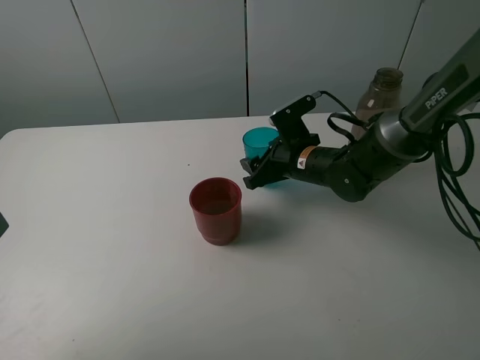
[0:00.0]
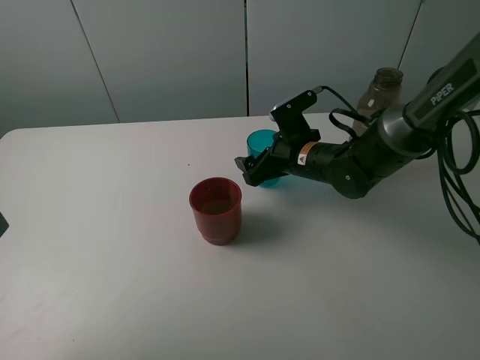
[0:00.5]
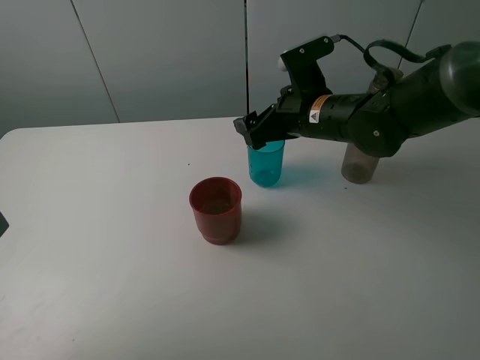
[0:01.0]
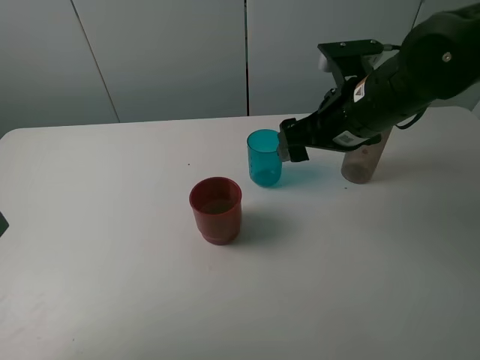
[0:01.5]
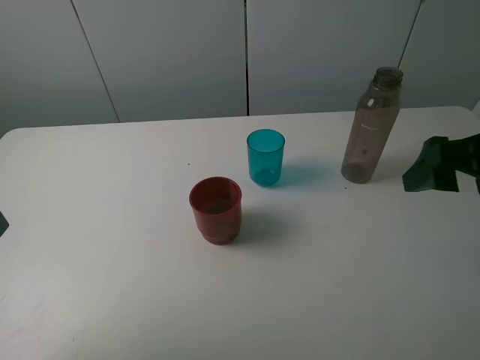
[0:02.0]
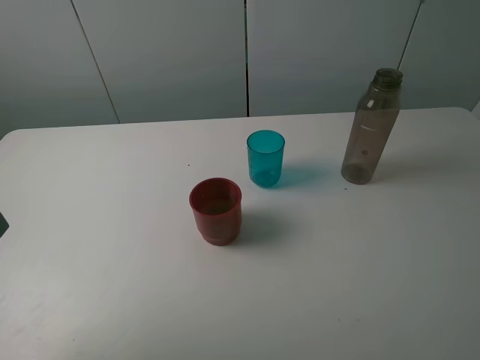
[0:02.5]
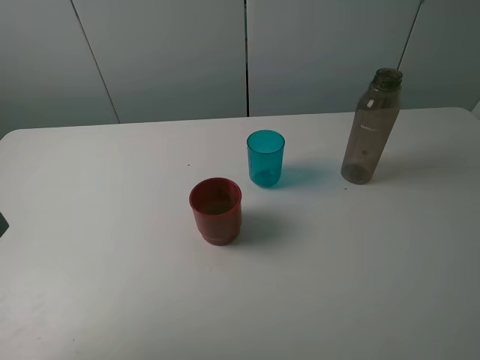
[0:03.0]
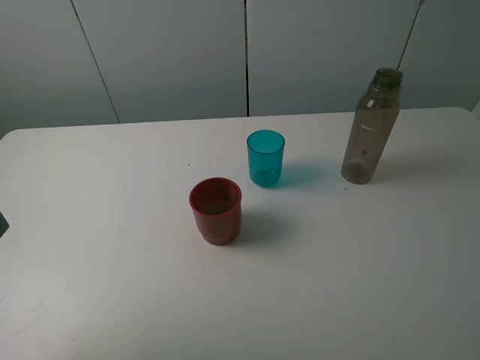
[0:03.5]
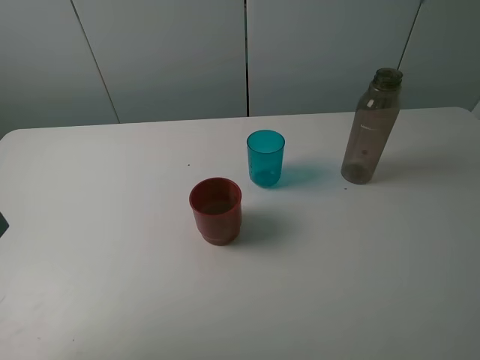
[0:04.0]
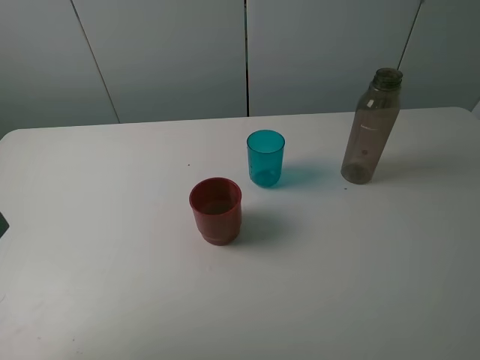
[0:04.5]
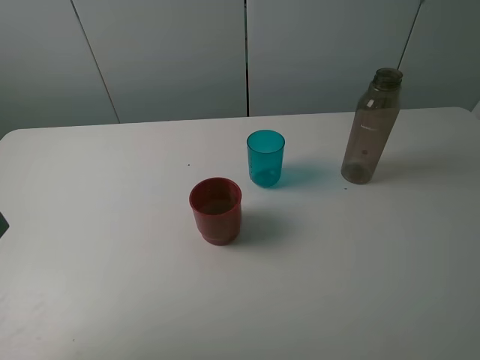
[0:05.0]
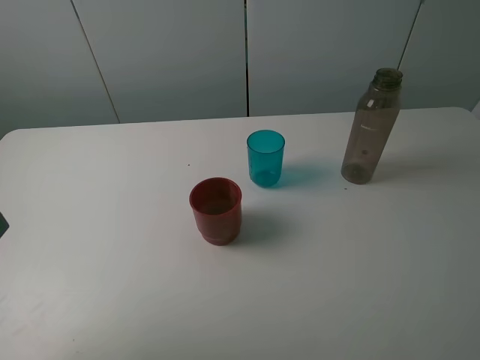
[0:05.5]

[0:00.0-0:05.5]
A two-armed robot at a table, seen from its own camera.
Task of the whole recording: pick up the bottle and pour water into the cup, then pick up the cup containing water and pour it into another cup.
0:00.0 to 0:02.0: The right gripper moves upward, backward and to the right, about 30 cm, and opens its fingers.
0:02.0 to 0:03.5: The right gripper goes roughly 15 cm backward.
0:03.5 to 0:05.5: Neither gripper changes place.

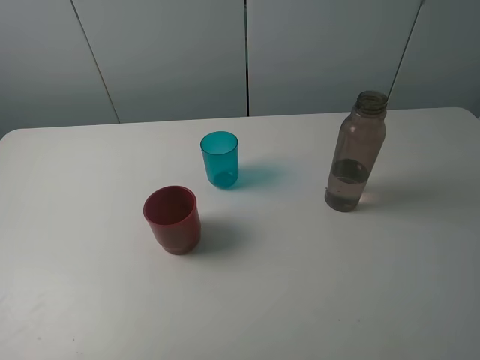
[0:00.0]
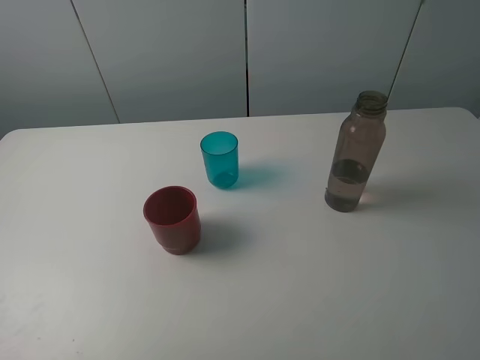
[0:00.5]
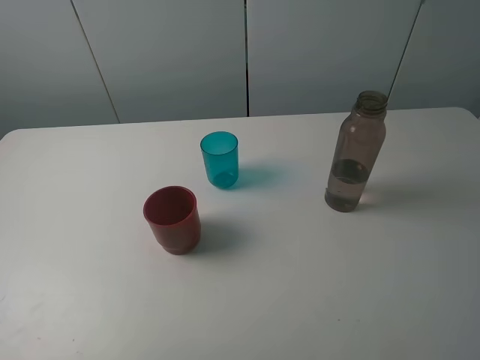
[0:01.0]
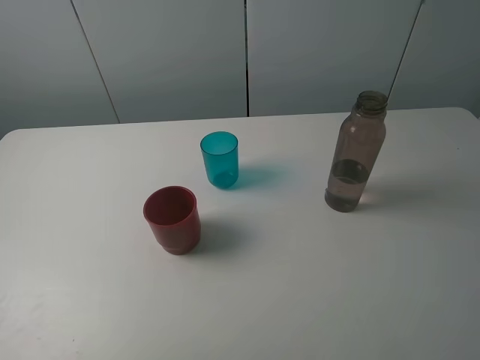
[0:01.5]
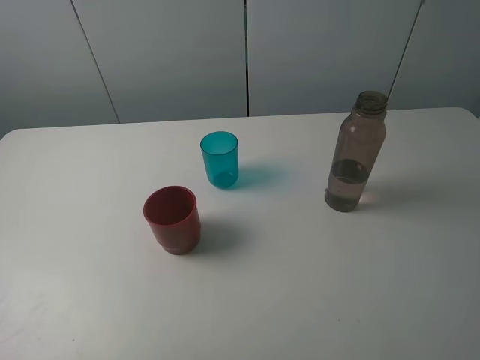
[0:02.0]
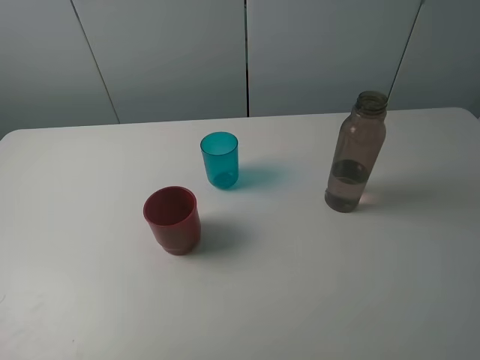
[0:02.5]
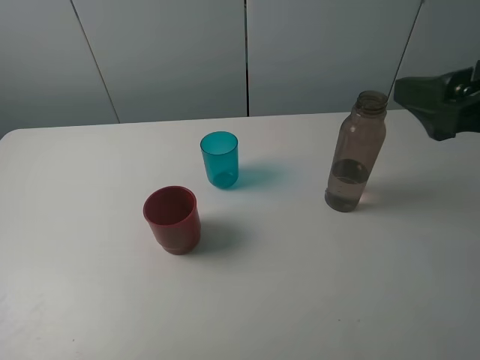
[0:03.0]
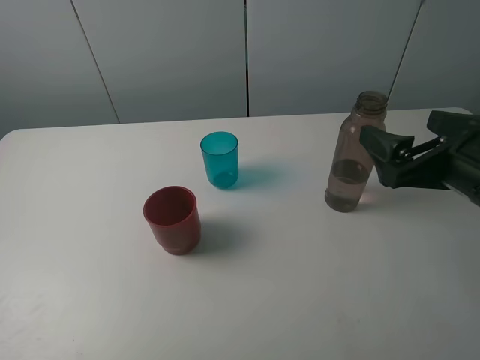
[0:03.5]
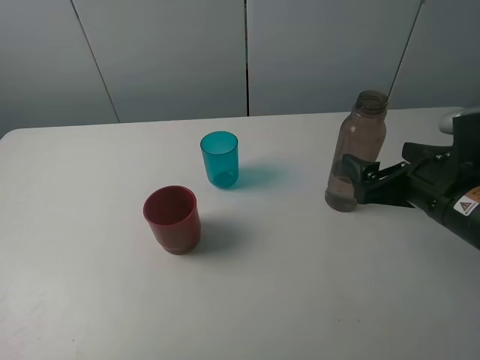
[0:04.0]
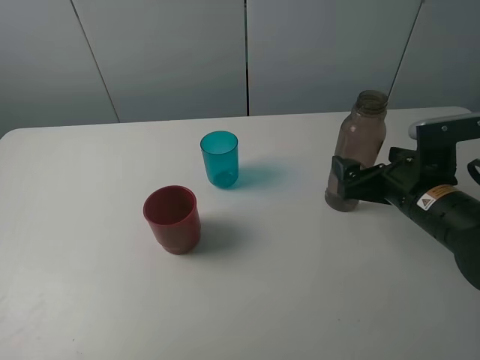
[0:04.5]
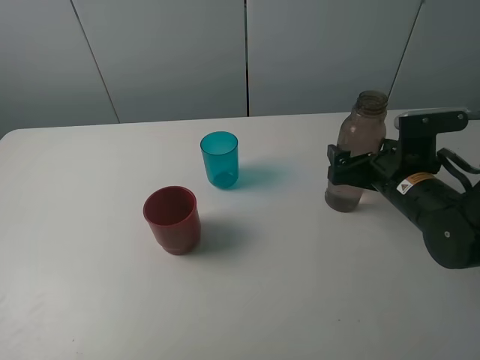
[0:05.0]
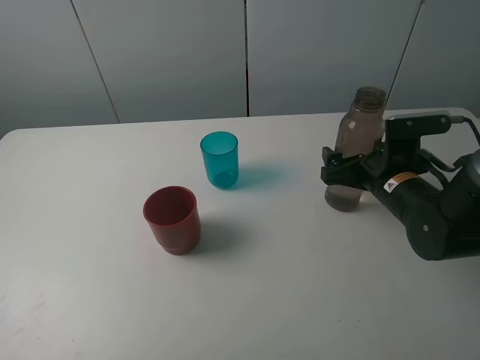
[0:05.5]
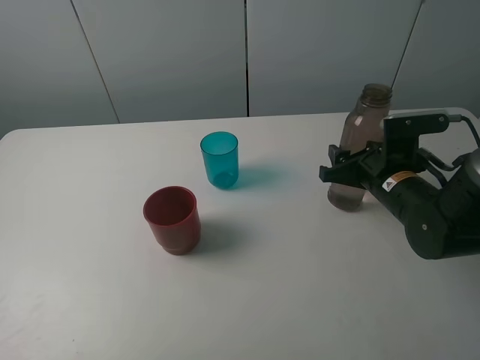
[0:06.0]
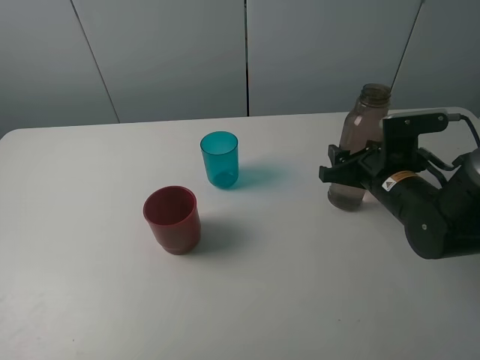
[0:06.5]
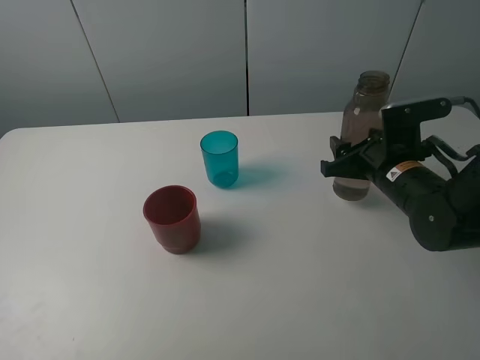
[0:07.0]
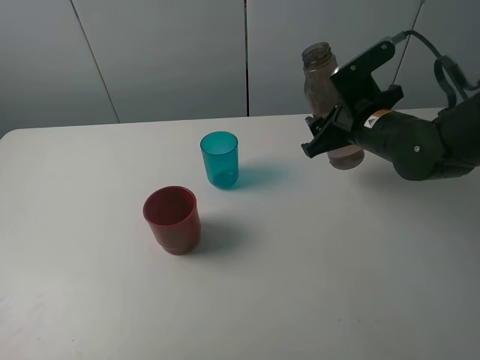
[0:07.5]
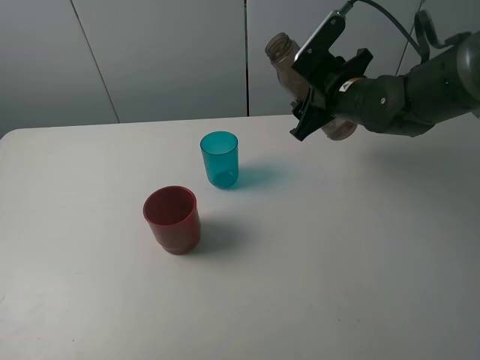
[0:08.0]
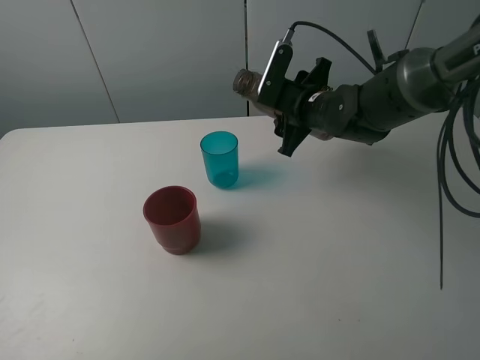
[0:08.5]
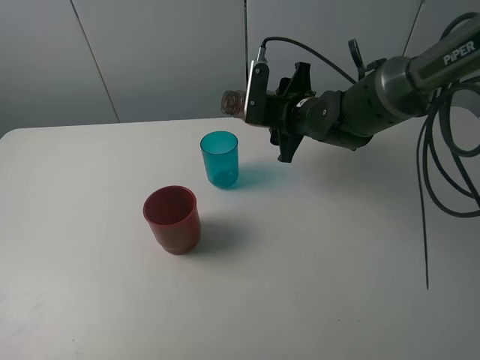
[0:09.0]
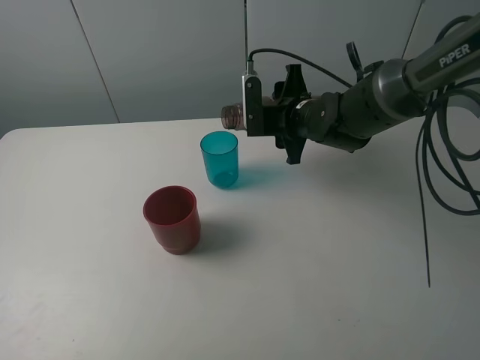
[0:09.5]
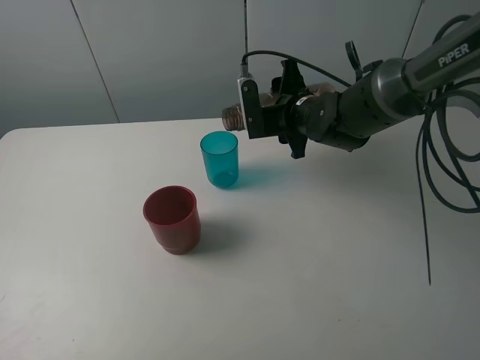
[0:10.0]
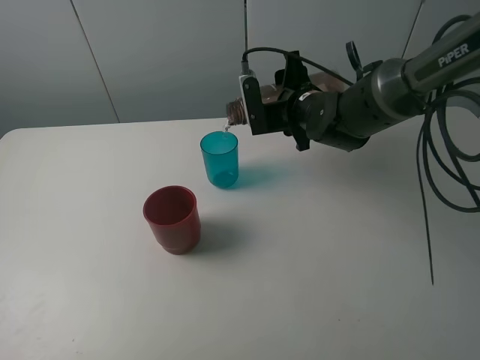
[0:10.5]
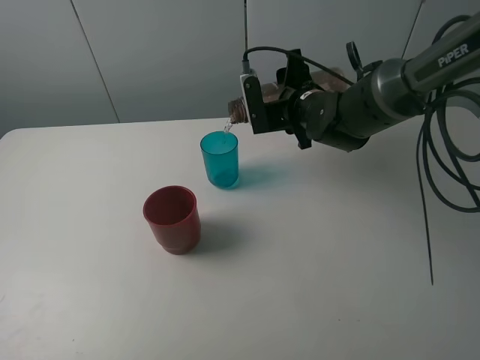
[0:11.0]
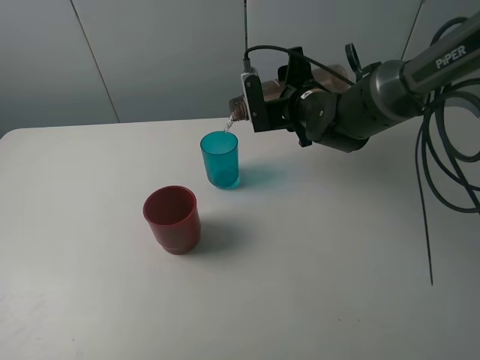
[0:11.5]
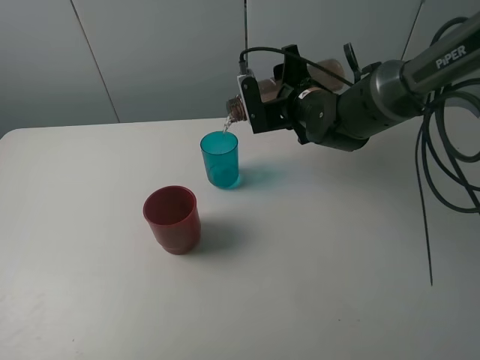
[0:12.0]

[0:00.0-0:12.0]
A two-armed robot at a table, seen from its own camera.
Task of the whole recording: pick up the bottle and pour water into the cup, then pick up the cup containing water and pour it into another cup.
Step, 0:00.0 to 0:06.0: Grasp the brown bottle with the right gripper.
0:00.0 to 0:02.0: Neither gripper changes place.
0:02.0 to 0:04.0: The right gripper is displaced forward and downward by some 25 cm.
0:04.0 to 0:06.0: The right gripper heads forward and downward, covering about 10 cm, and closes.
0:06.0 to 0:08.0: The right gripper heads forward, upward and to the left, covering approximately 15 cm.
0:08.0 to 0:10.0: The right gripper changes place by roughly 5 cm.
0:10.0 to 0:12.0: The grippers move only a little.

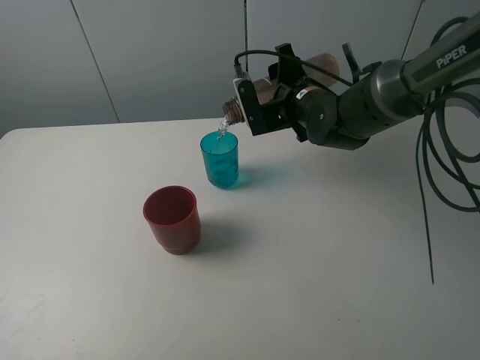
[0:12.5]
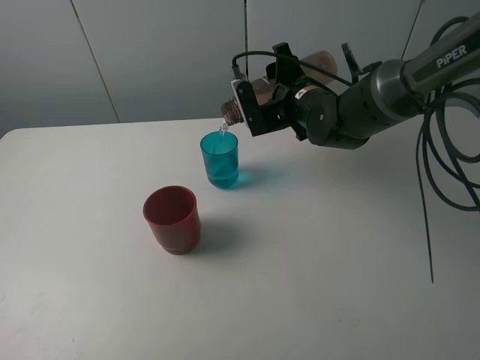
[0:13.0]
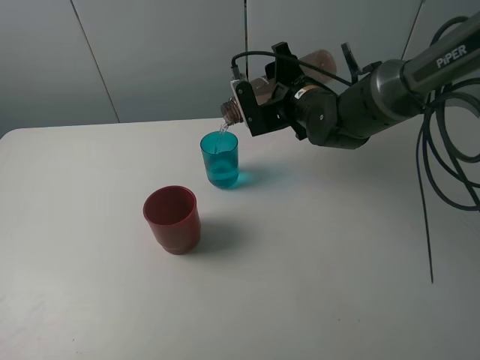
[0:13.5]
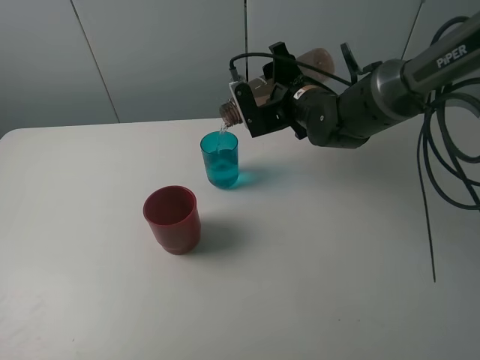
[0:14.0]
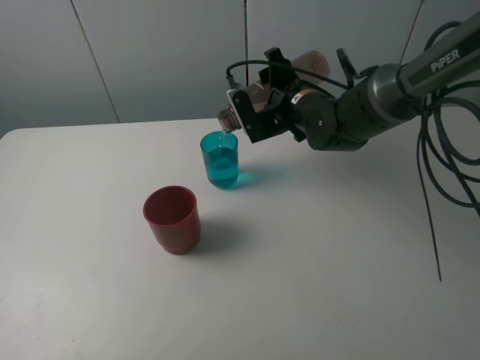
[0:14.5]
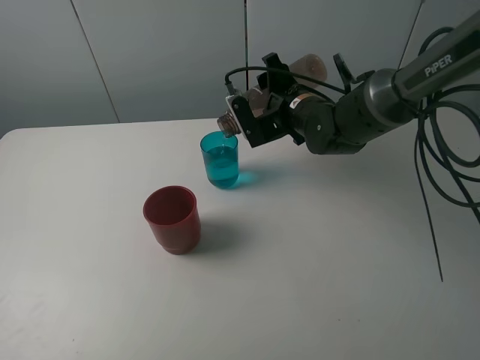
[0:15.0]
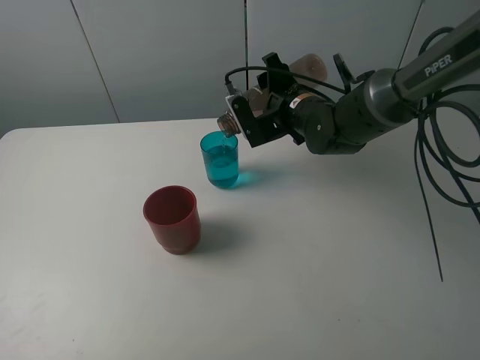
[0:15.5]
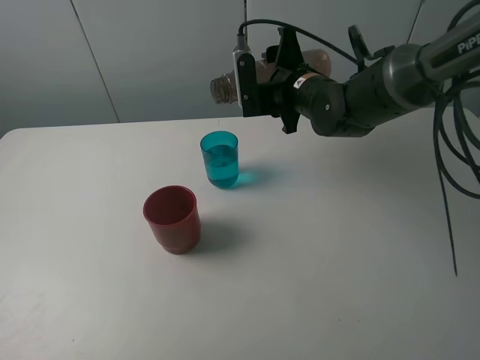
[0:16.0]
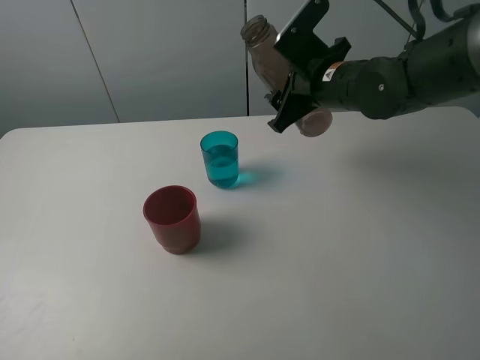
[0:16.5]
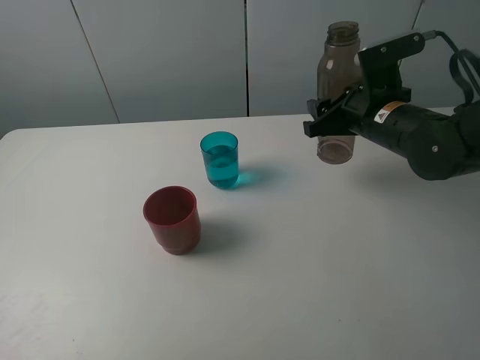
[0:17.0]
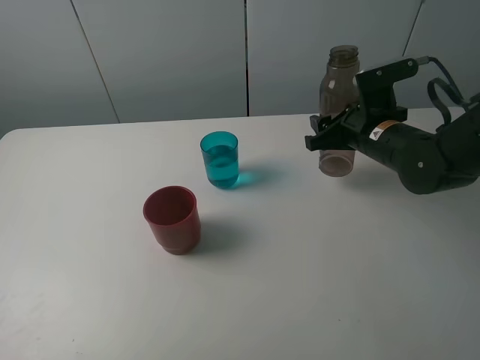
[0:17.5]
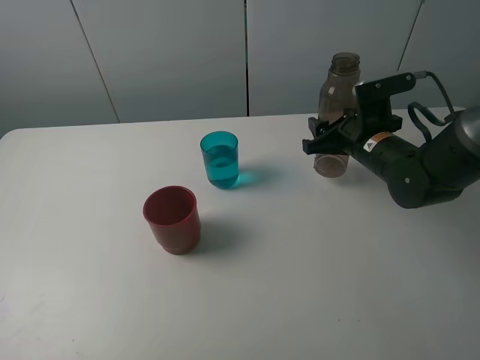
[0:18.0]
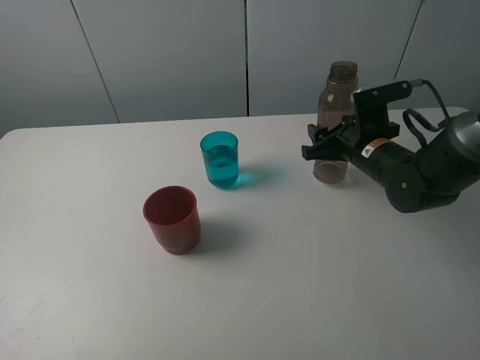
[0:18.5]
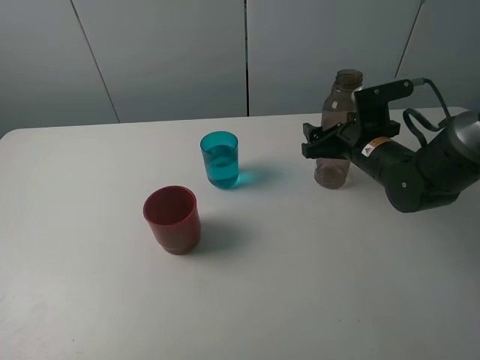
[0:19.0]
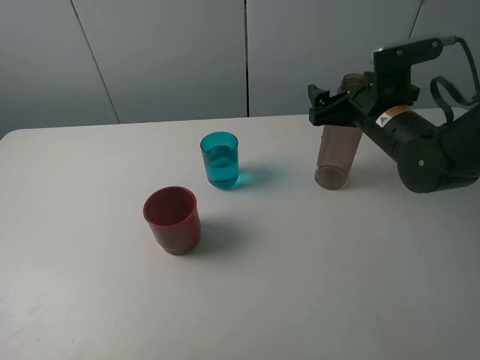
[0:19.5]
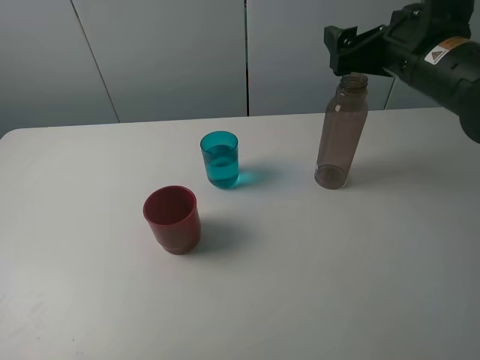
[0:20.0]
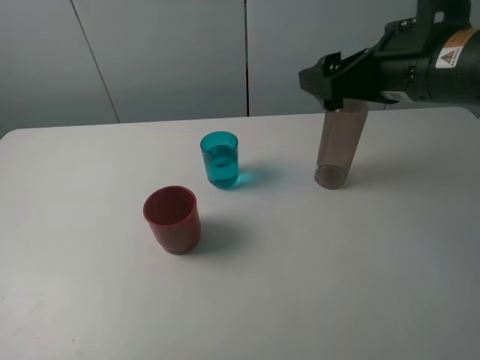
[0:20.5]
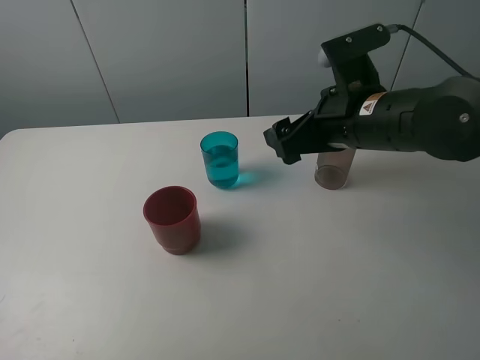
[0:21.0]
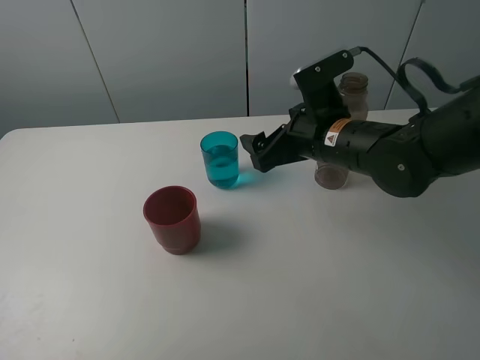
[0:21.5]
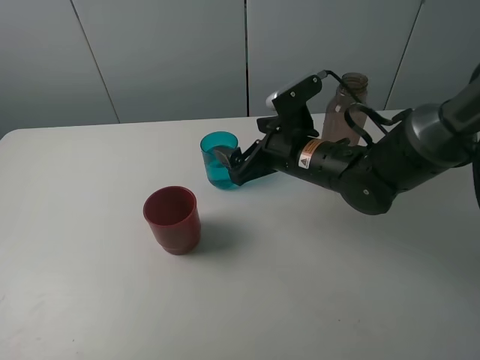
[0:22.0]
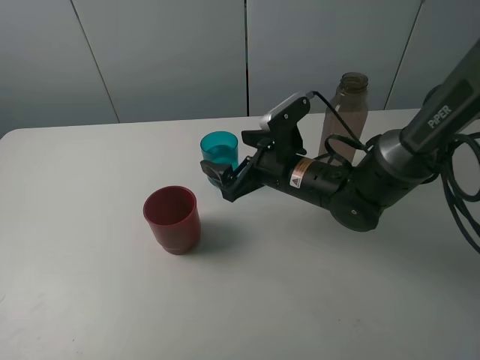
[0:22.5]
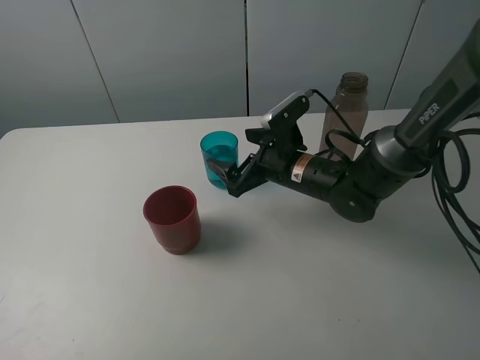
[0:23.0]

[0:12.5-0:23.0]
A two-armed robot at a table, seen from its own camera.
Task of the whole recording: pick up the bottle and pour water into the cup, then pick up the cup containing water and pour it into another cup.
Step, 0:12.5 to 0:15.0: Pour water from brown bottle to blue cup with the right gripper.
Step, 0:15.5 to 0:18.5: Place the brown bottle with the right gripper.
0:12.5 to 0:14.5: There are only small adjustments of the grippers.
0:14.5 to 0:16.5: The right gripper travels upward by some 5 cm.
0:16.5 to 0:19.0: The right gripper goes roughly 10 cm downward and to the right, and opens up.
0:19.0 to 0:21.0: The right gripper is displaced upward, backward and to the left by some 15 cm.
0:21.0 to 0:23.0: The right gripper shifts approximately 15 cm downward, forward and to the left.
